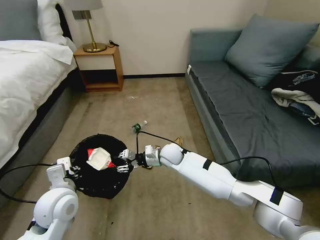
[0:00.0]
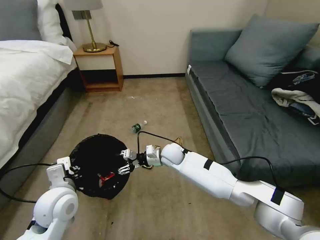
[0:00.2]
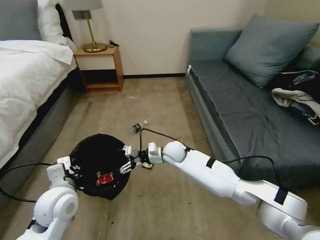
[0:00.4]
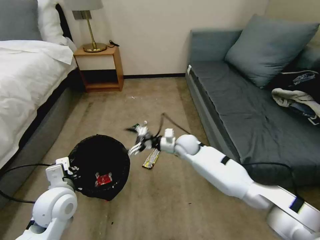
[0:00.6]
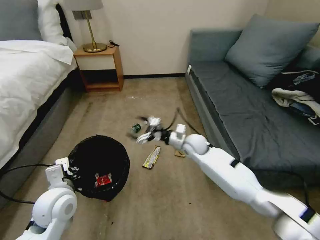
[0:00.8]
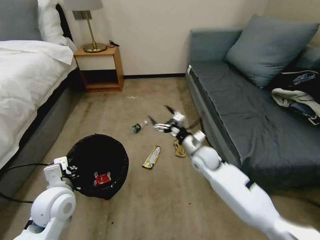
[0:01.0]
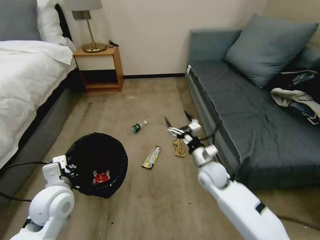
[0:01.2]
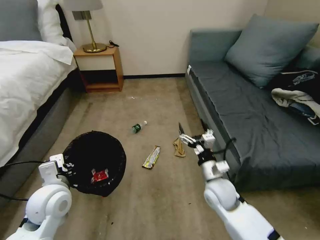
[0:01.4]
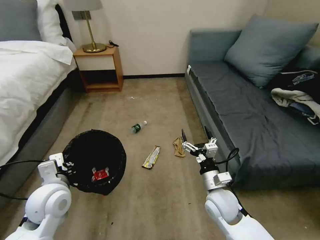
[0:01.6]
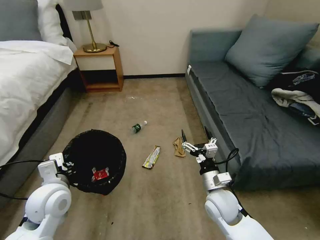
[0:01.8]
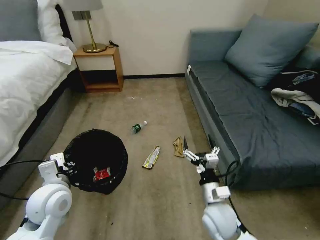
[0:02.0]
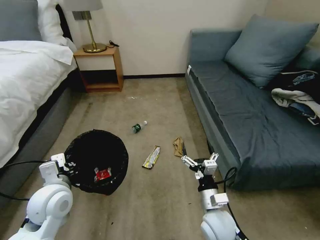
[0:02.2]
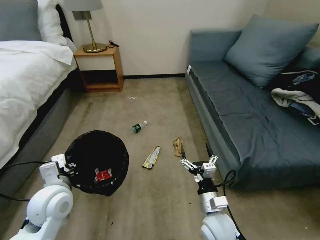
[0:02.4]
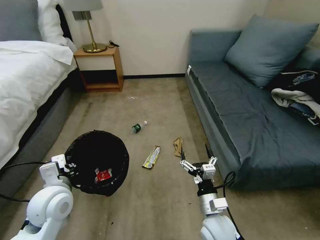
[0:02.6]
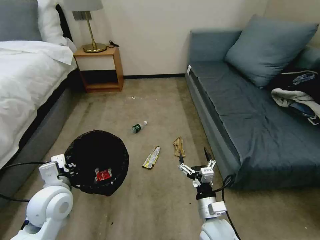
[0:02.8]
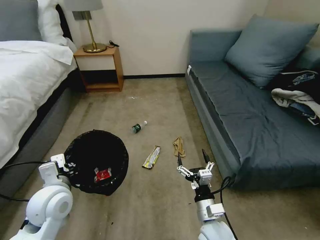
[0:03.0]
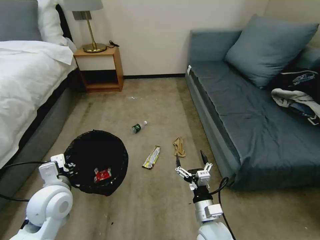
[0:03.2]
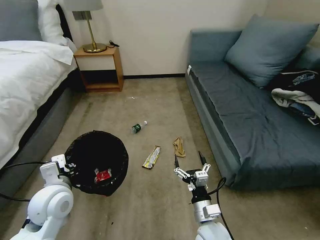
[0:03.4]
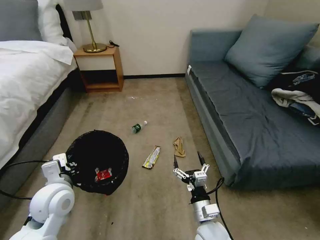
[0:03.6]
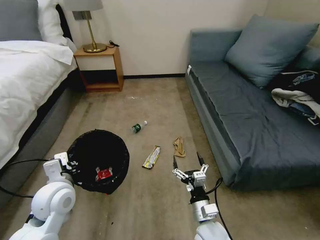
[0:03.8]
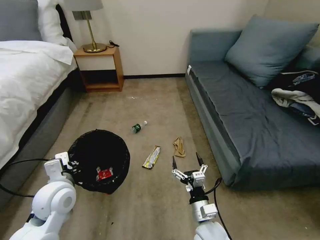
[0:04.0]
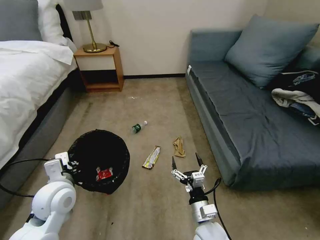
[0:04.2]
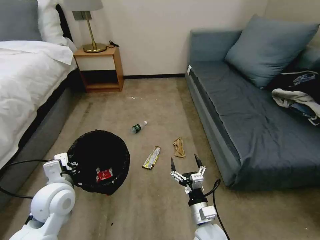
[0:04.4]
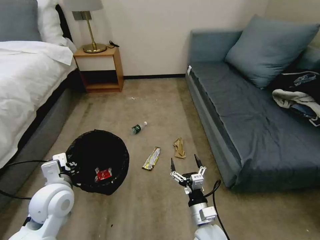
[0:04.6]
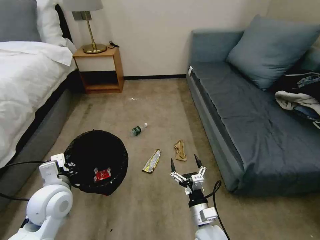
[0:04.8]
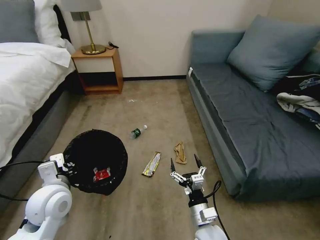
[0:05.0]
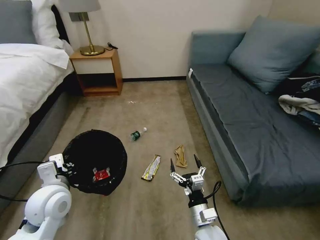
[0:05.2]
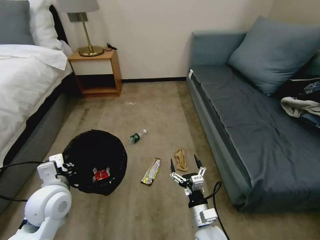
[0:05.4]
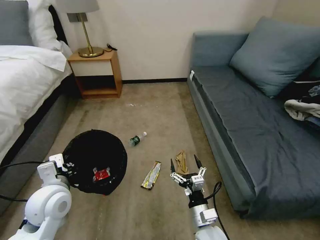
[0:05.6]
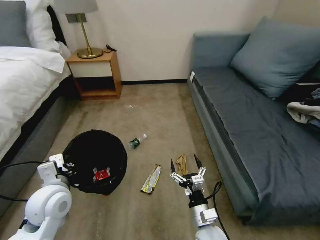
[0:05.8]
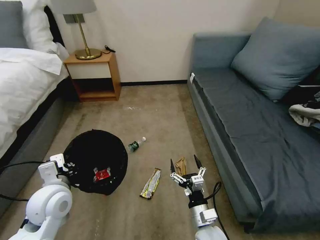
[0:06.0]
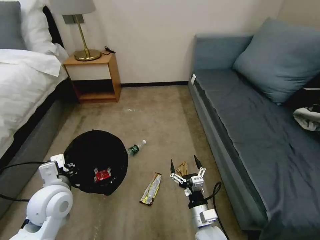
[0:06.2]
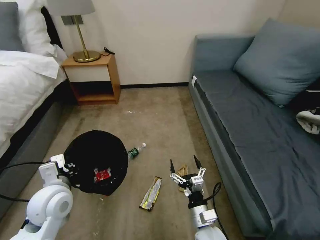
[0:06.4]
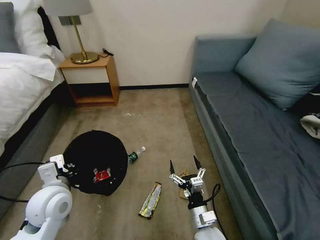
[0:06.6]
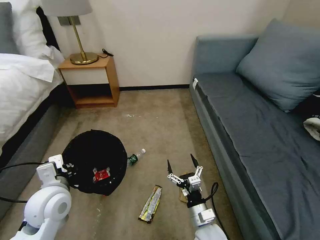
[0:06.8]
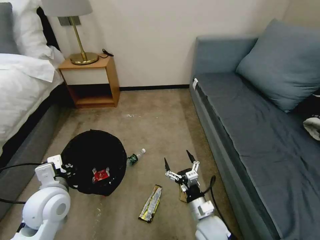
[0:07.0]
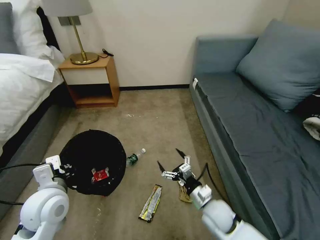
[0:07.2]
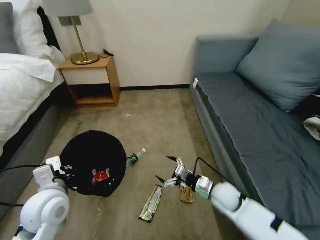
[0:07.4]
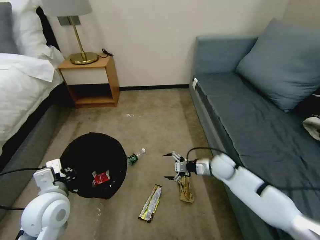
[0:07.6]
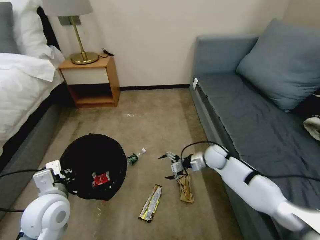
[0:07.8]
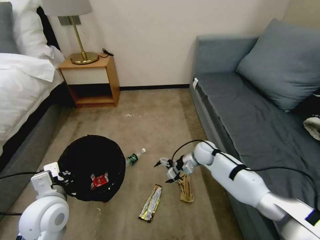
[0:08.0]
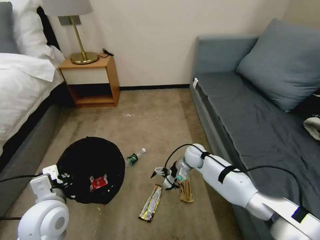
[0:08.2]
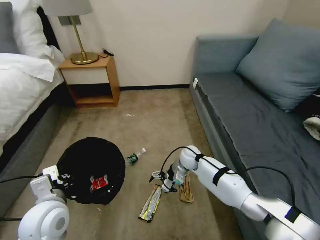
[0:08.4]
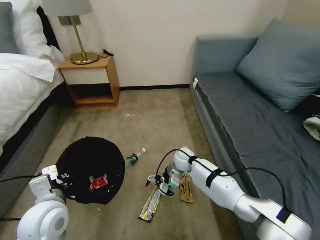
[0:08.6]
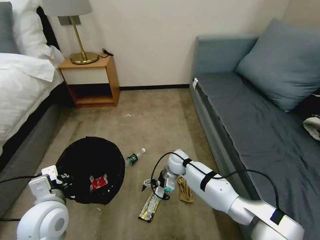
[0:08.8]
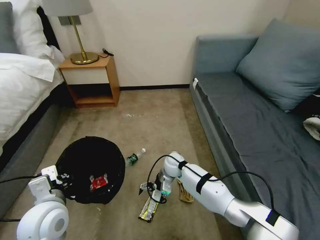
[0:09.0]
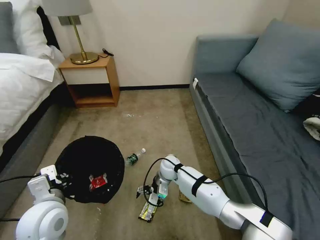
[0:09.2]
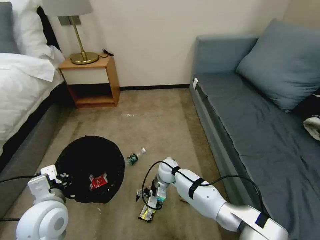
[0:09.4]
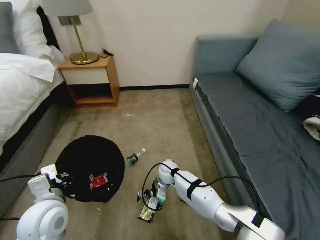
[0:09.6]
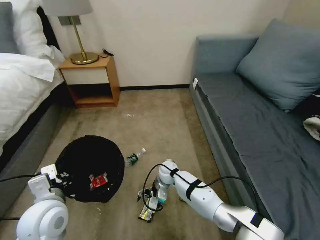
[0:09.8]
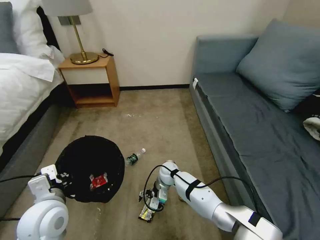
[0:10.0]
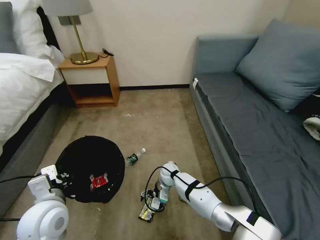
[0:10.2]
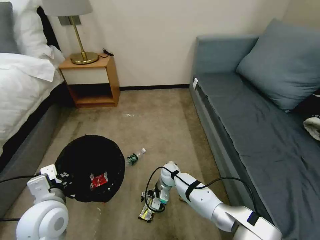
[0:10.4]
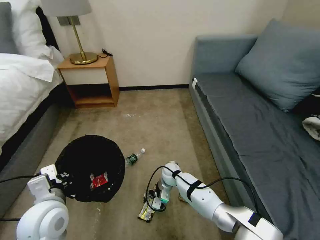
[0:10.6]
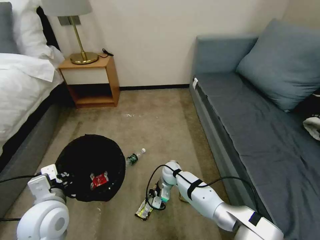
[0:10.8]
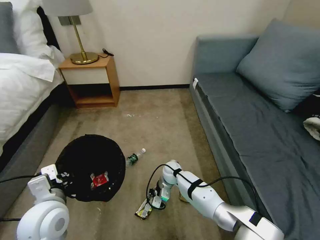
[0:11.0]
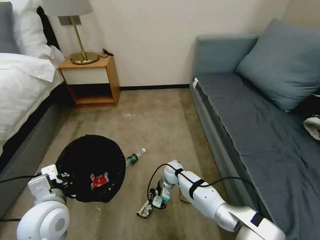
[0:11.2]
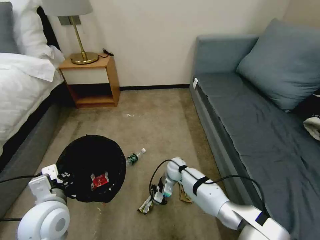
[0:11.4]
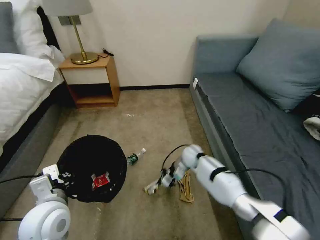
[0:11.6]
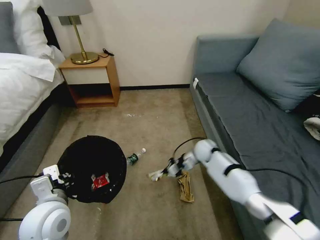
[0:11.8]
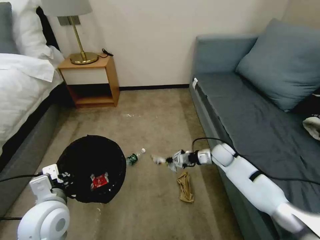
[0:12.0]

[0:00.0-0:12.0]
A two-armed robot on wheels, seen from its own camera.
Task of the whole recording: Pick up the trash bin, then pick up the garbage on the floor and place it into the trash bin.
0:00.0 to 0:01.6: The right gripper moves backward and to the right, some 25 cm, and opens its fingers.
0:01.6 to 0:03.0: The right gripper heads backward, covering approximately 10 cm.
0:03.0 to 0:04.4: The grippers stay close to where they were, moving slightly.
0:06.0 to 0:07.6: The right gripper moves forward and to the right, some 25 cm.
0:07.6 to 0:09.0: The right gripper moves to the left, about 20 cm.
0:09.0 to 0:10.4: The right gripper heads downward, covering about 5 cm.
0:10.4 to 0:12.0: The right gripper moves to the right and upward, about 25 cm, and closes its fingers.

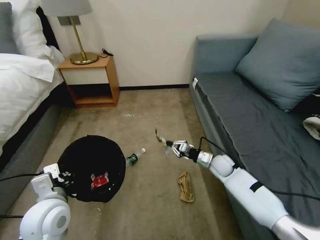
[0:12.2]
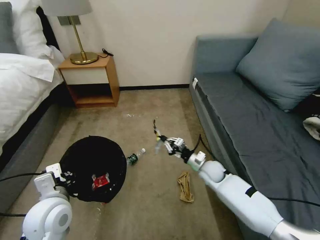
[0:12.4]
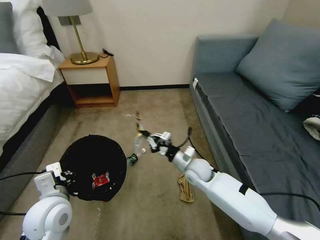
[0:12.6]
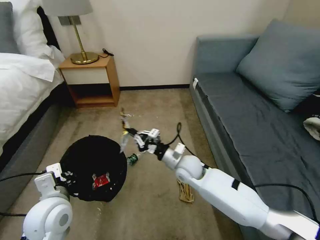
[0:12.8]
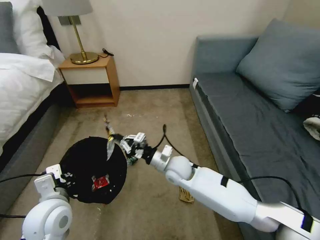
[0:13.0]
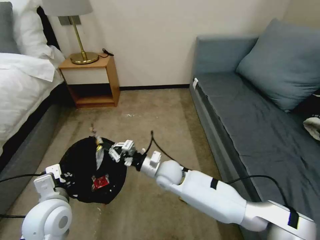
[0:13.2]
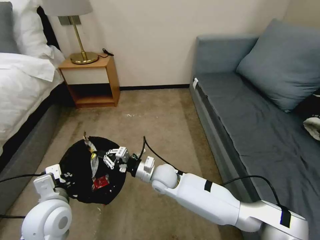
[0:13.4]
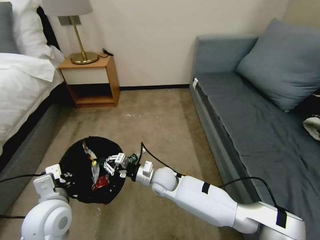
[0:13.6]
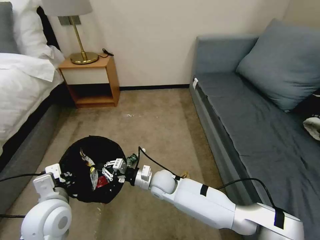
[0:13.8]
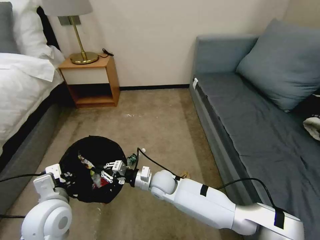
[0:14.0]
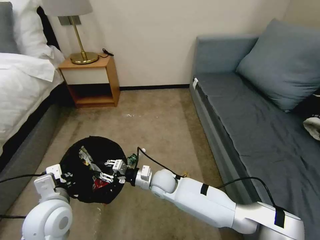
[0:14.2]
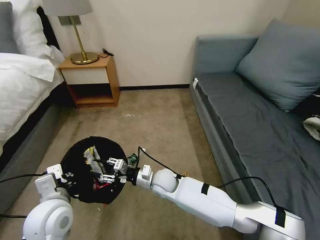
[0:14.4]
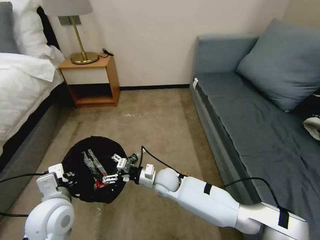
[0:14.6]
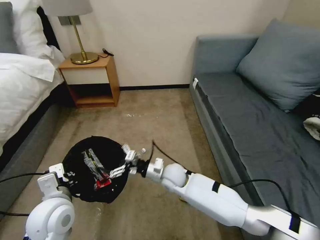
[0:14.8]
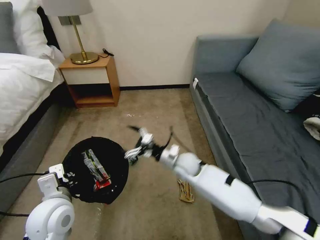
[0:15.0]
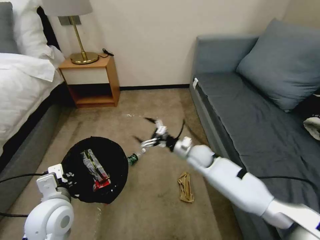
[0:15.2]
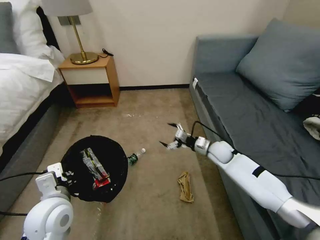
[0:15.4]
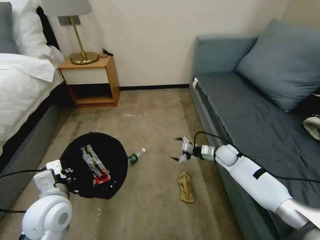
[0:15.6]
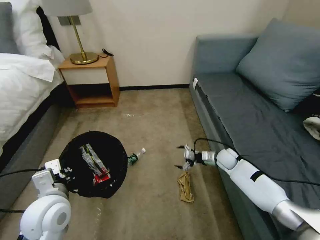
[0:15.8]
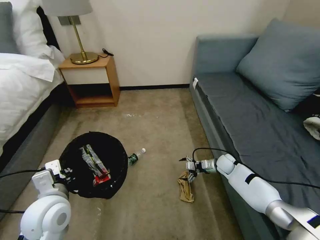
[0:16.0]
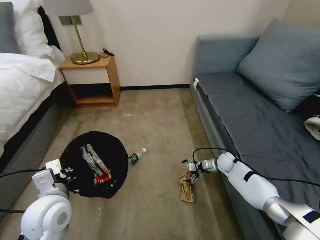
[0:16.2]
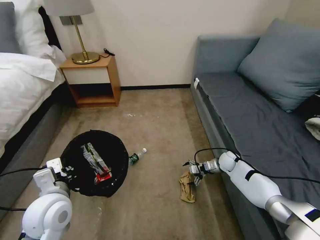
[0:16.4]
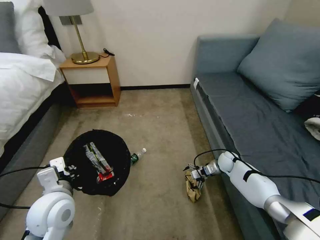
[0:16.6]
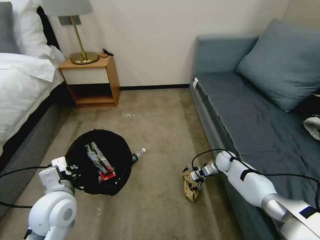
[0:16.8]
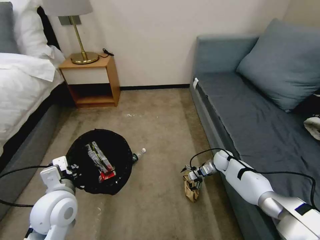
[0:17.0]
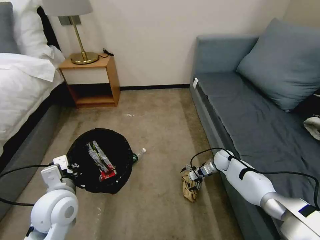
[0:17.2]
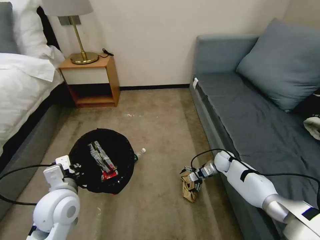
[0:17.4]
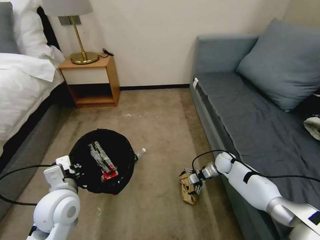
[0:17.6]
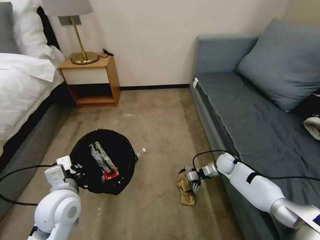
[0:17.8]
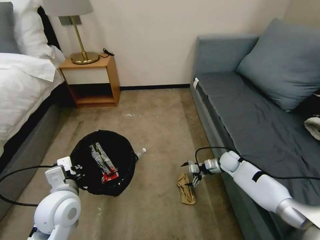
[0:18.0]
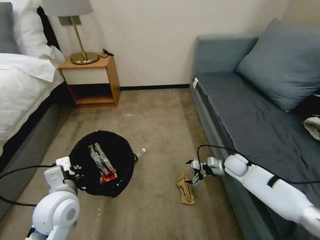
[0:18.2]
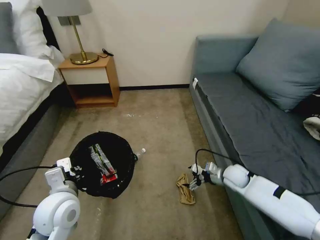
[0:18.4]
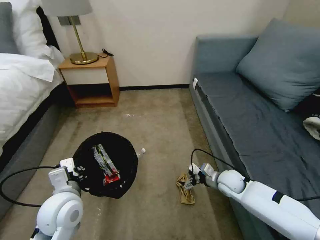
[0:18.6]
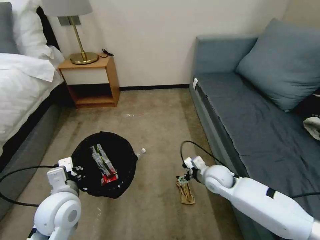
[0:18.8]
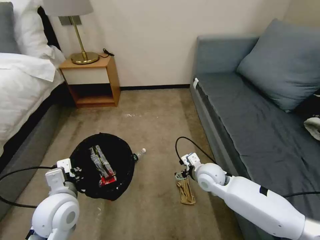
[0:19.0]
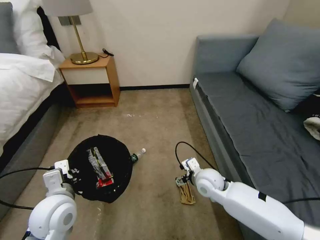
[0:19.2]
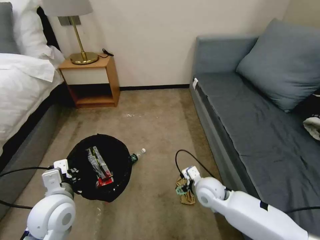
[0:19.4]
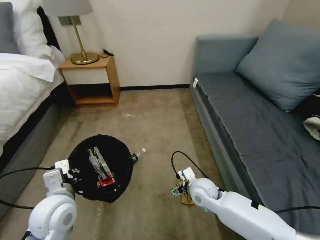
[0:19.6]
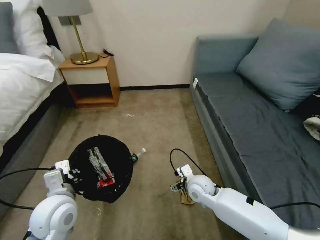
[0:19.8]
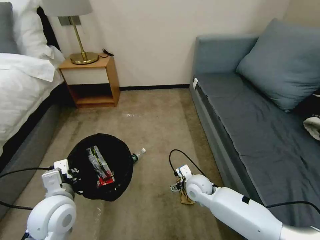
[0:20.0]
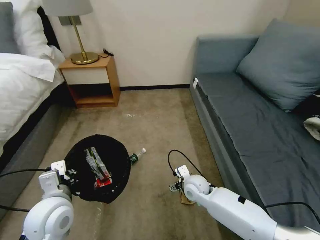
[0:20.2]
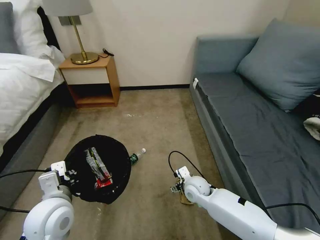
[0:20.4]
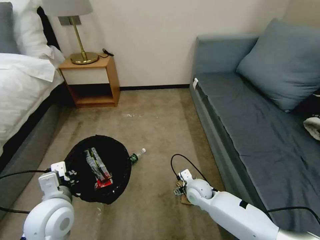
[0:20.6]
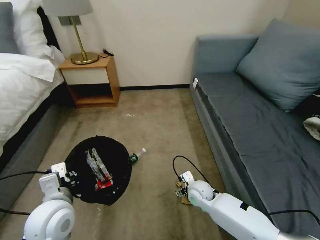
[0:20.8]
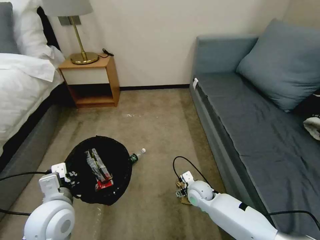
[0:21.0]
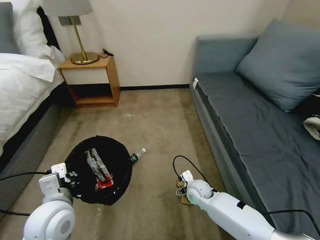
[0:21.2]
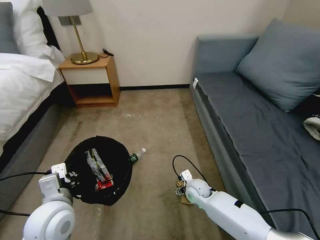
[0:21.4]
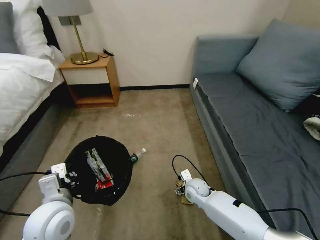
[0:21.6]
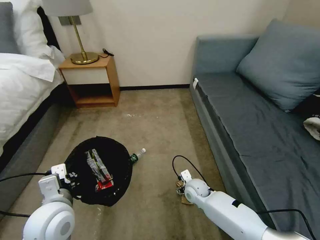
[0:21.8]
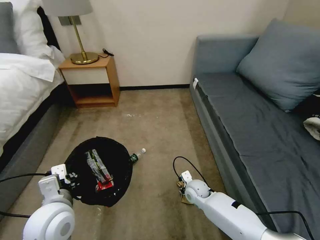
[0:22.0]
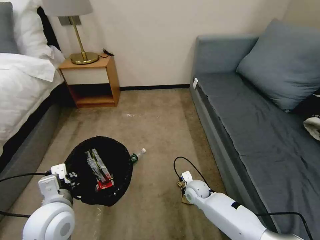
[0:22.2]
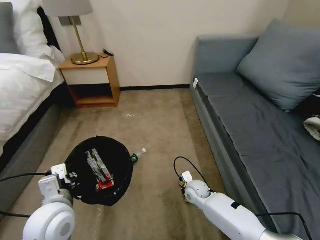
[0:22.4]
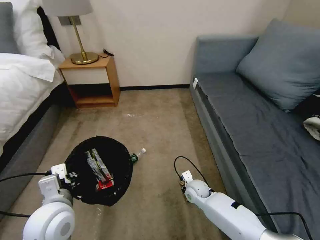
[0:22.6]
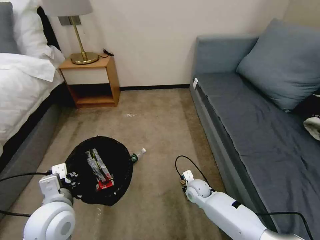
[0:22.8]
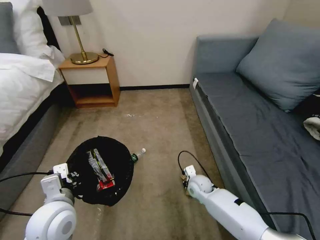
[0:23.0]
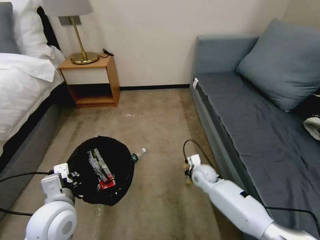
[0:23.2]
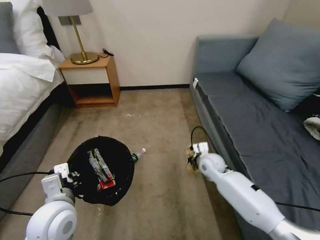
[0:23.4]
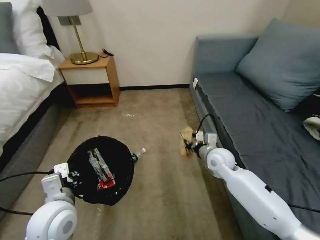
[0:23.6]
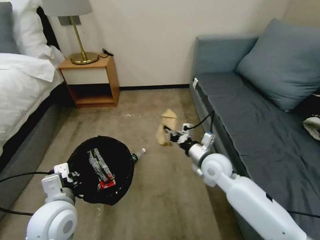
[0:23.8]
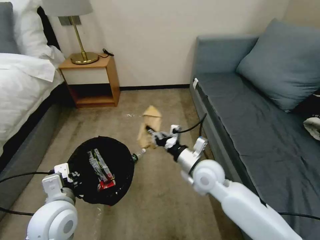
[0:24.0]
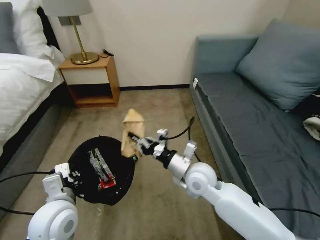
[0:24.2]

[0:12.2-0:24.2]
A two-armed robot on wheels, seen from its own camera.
Task of the whole recording: Pick up the trash bin, then pick up the garbage on the floor and place it into the trash bin.
0:12.2 to 0:13.8: The right gripper moves to the left, about 25 cm.
0:13.8 to 0:15.2: The right gripper heads to the right and forward, covering about 20 cm, and opens.
0:15.2 to 0:16.6: The right gripper shifts some 20 cm to the right and downward.
0:16.6 to 0:18.2: The right gripper shifts some 10 cm backward and upward.
0:18.2 to 0:19.8: The right gripper travels to the left and backward by roughly 20 cm.
0:19.8 to 0:21.2: The right gripper goes roughly 5 cm downward.
0:21.2 to 0:22.6: The right gripper closes up.
0:22.6 to 0:24.2: The right gripper is displaced upward by approximately 20 cm.
